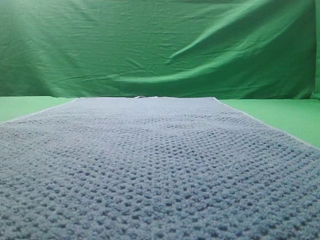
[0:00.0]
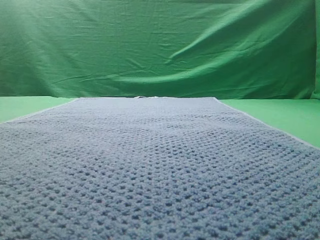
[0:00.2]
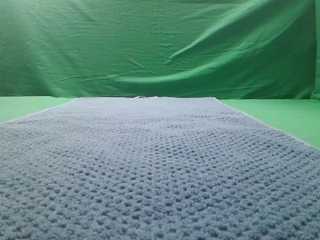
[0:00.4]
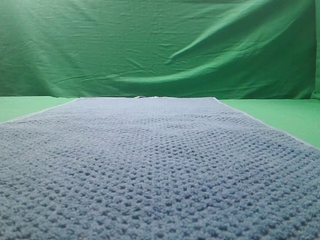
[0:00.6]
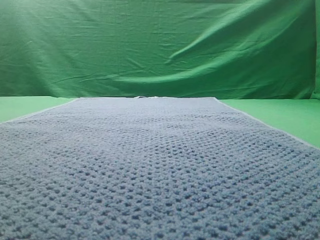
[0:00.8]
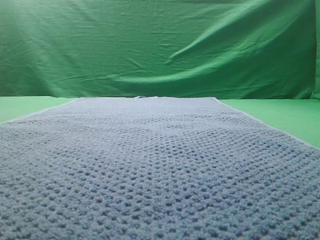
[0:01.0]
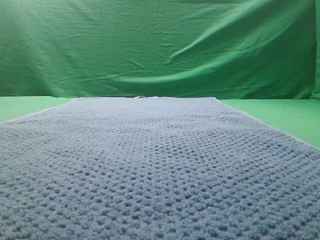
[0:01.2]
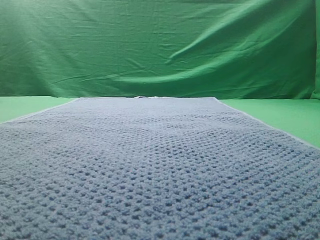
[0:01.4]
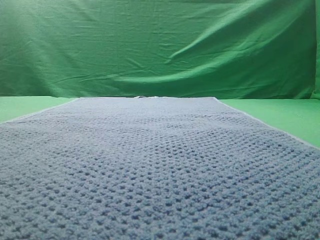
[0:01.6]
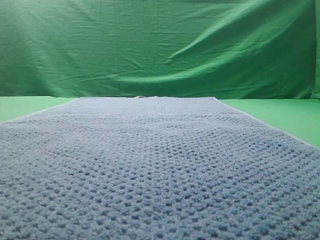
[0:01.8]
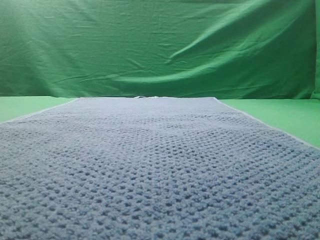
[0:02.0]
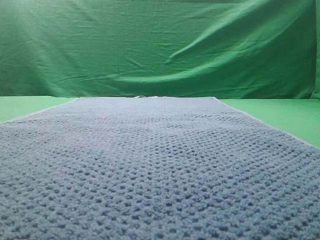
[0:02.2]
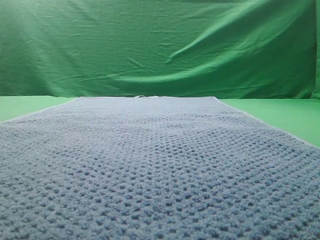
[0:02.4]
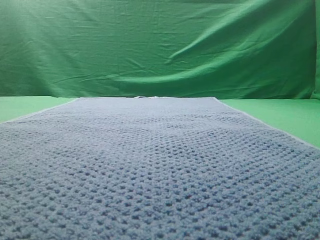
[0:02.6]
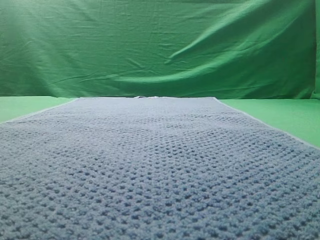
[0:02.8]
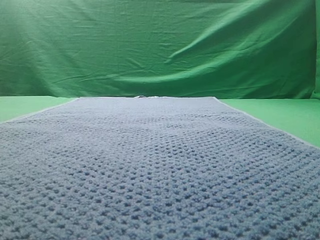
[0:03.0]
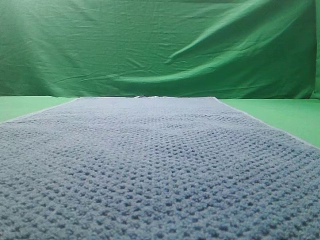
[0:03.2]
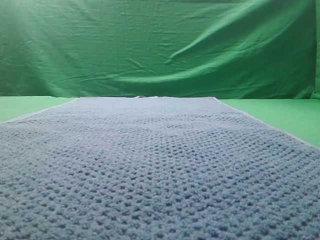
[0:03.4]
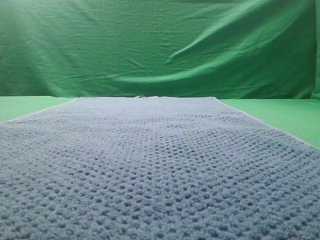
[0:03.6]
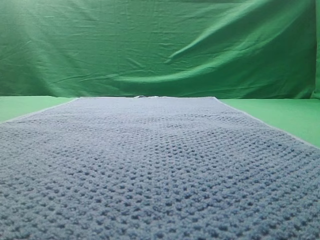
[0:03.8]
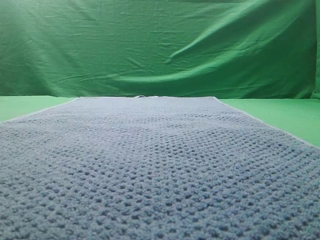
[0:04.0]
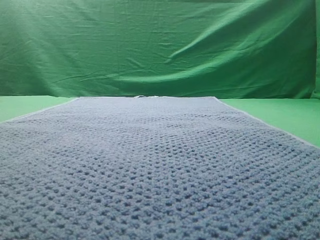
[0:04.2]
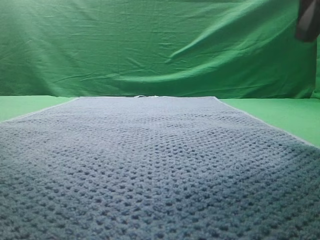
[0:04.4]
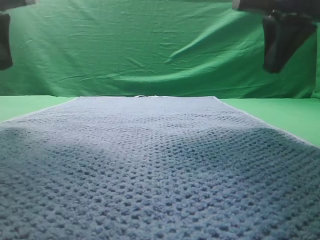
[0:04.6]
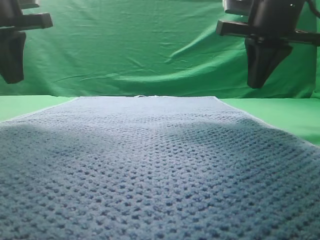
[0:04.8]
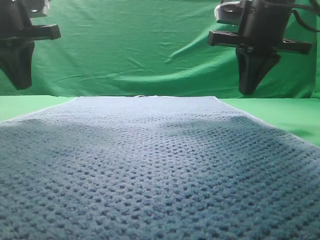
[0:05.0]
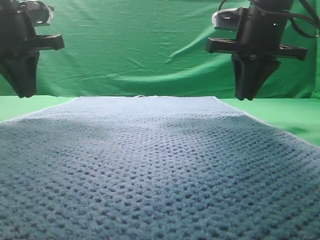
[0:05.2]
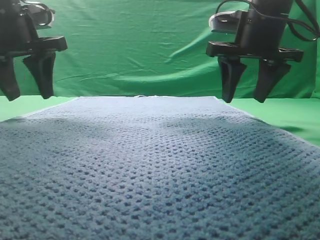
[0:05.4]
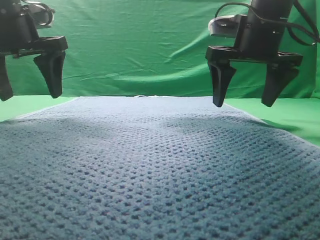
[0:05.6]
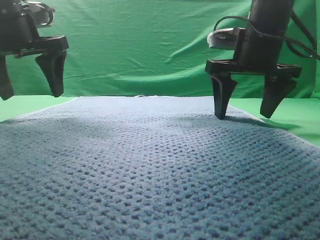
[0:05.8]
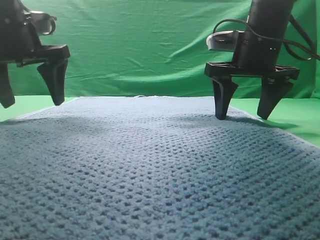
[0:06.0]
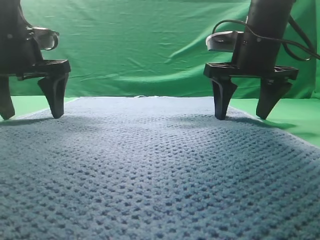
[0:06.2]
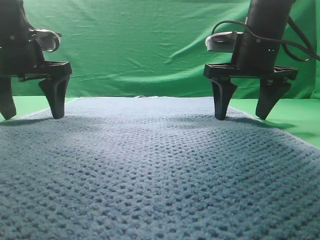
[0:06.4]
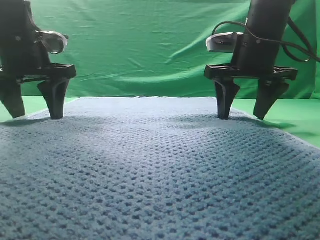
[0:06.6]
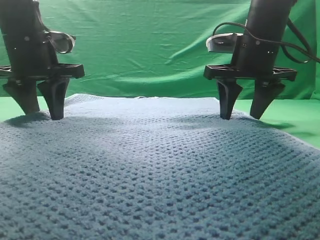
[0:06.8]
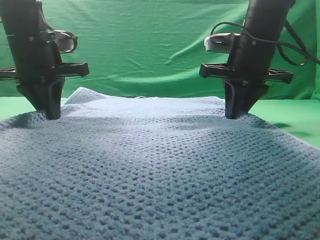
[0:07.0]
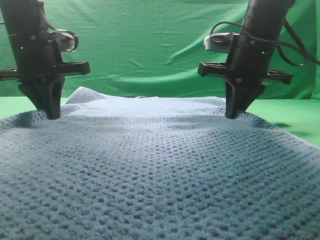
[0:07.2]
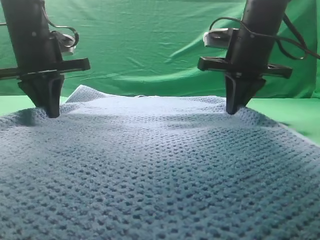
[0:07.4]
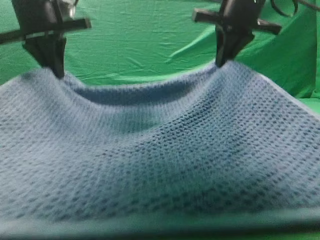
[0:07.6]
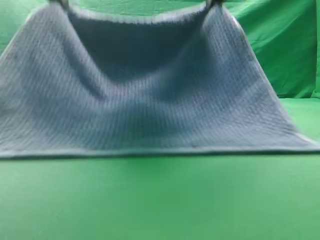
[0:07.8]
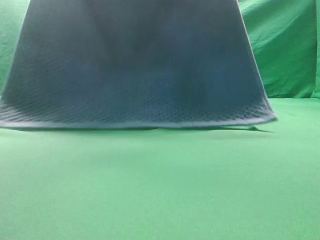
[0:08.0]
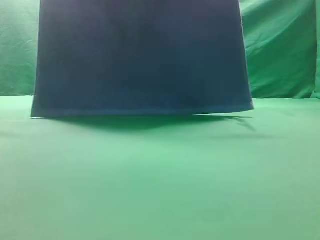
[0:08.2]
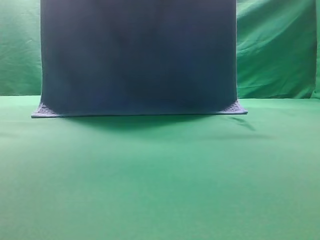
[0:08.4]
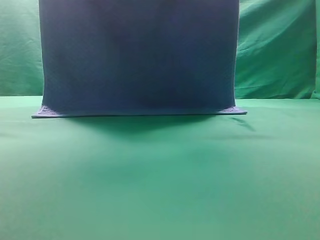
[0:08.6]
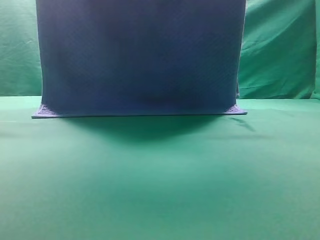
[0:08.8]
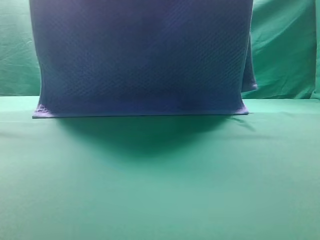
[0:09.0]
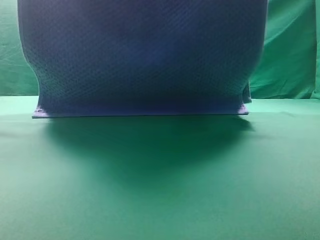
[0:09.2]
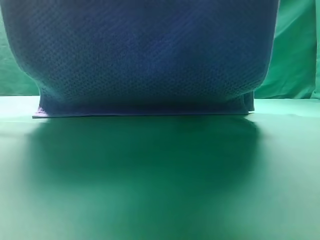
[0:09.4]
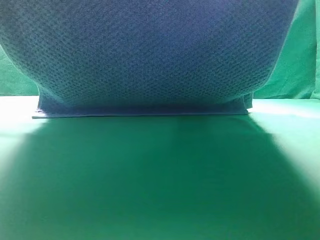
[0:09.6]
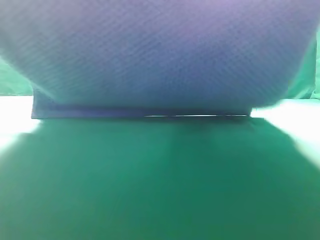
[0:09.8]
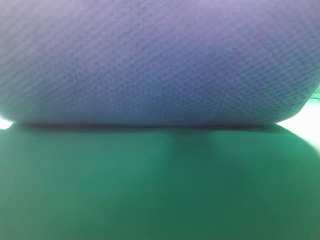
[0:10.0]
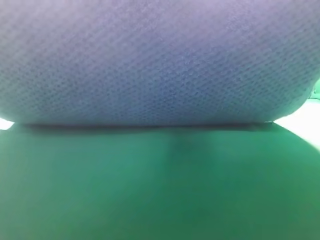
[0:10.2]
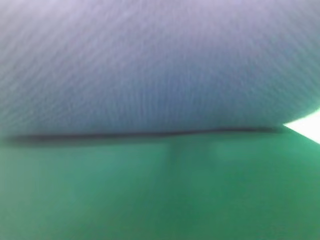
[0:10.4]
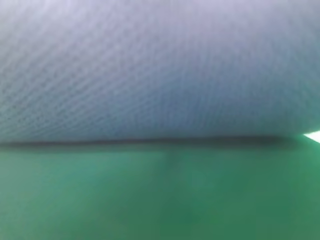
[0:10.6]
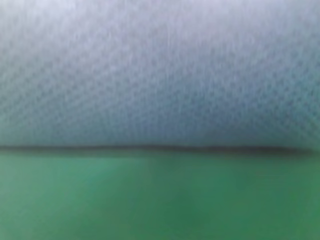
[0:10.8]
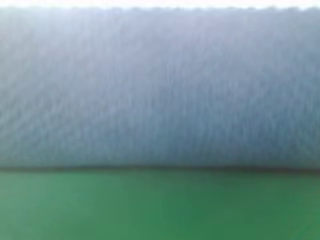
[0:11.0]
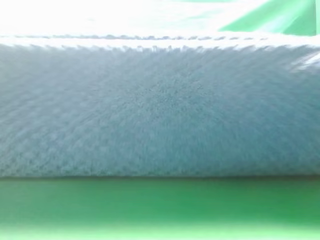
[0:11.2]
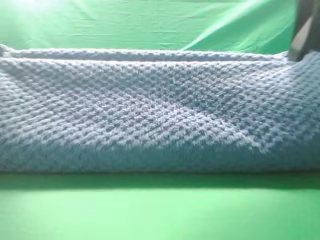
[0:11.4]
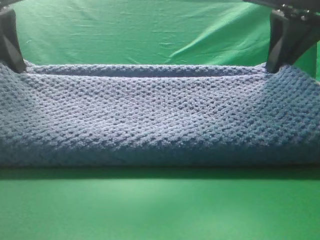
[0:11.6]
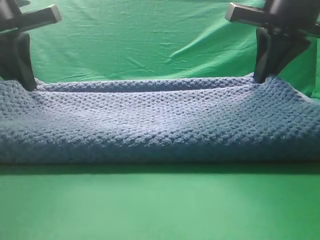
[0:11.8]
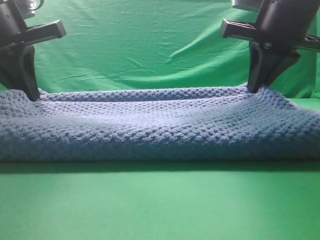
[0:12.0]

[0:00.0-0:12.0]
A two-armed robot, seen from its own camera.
Task of the whole recording: fold the towel on the table twice.
Step, 0:00.0 to 0:08.0: pick up the towel with two arm.

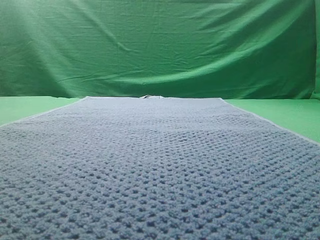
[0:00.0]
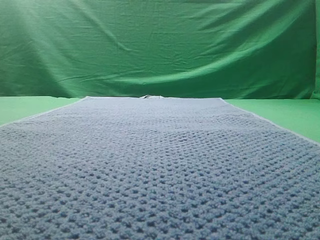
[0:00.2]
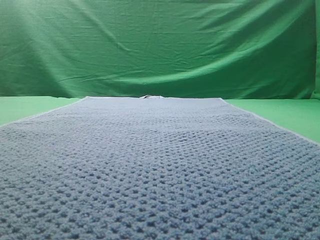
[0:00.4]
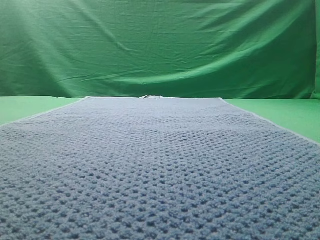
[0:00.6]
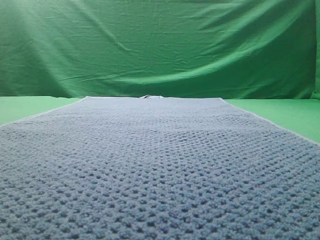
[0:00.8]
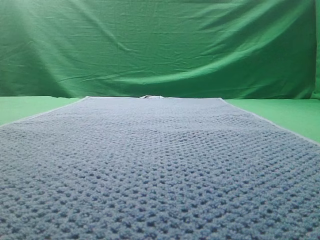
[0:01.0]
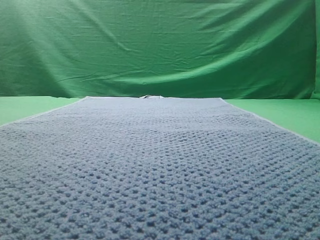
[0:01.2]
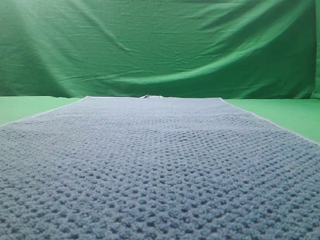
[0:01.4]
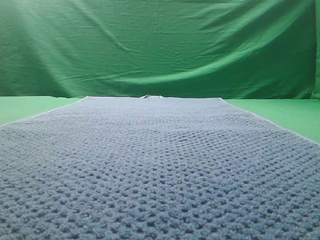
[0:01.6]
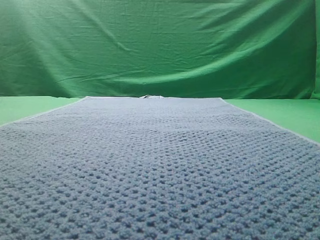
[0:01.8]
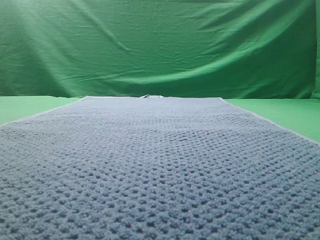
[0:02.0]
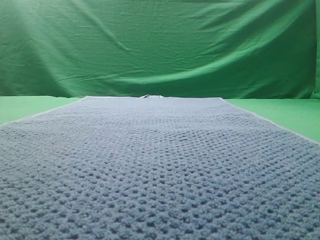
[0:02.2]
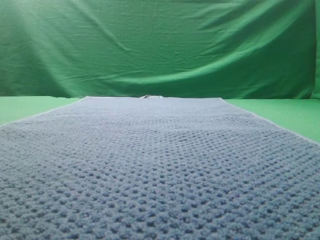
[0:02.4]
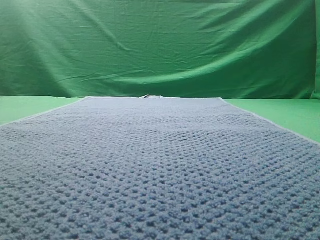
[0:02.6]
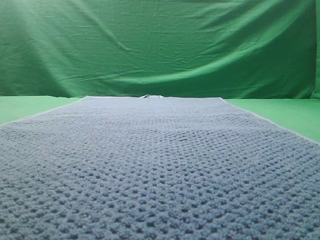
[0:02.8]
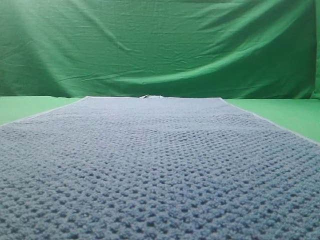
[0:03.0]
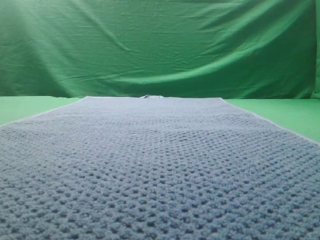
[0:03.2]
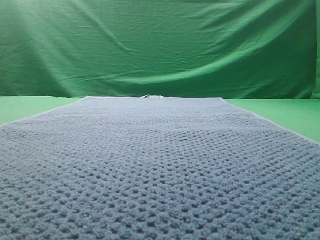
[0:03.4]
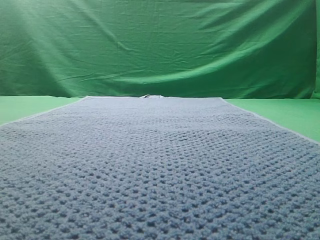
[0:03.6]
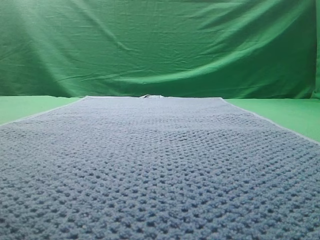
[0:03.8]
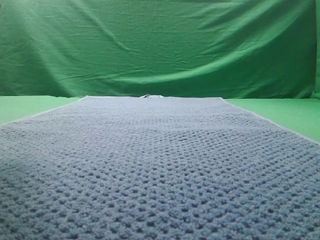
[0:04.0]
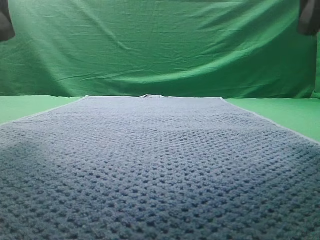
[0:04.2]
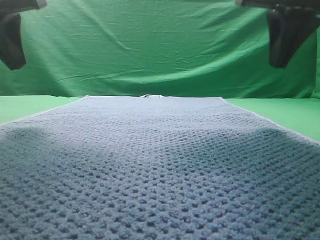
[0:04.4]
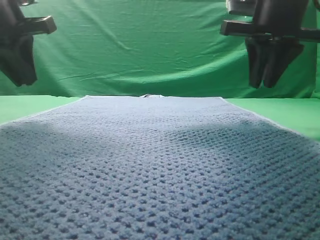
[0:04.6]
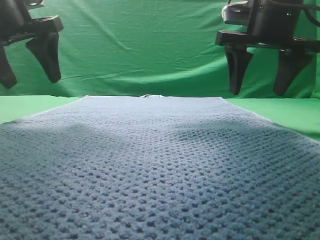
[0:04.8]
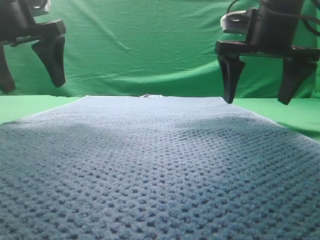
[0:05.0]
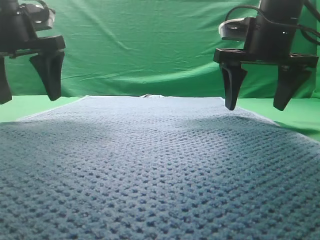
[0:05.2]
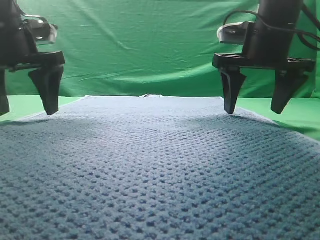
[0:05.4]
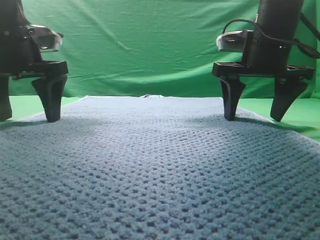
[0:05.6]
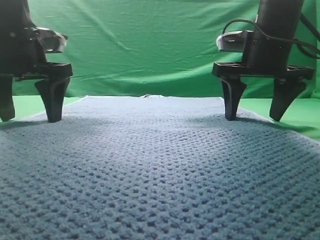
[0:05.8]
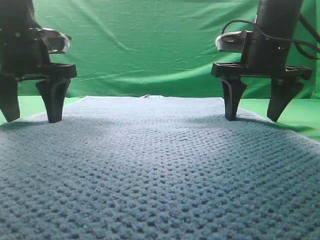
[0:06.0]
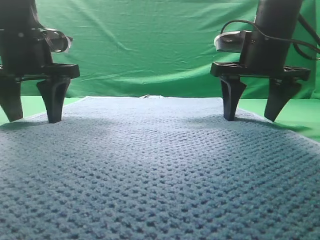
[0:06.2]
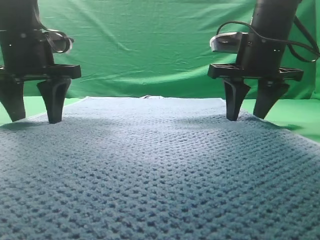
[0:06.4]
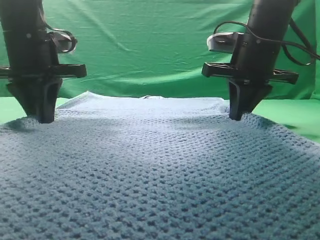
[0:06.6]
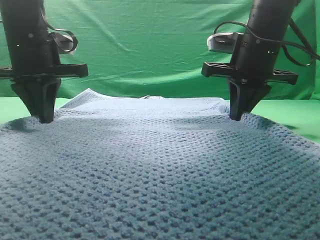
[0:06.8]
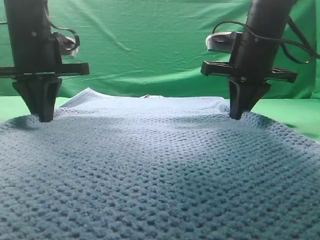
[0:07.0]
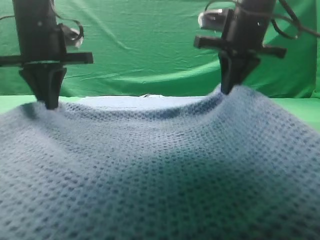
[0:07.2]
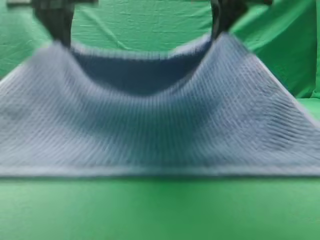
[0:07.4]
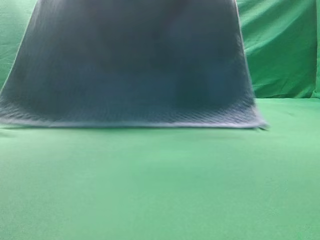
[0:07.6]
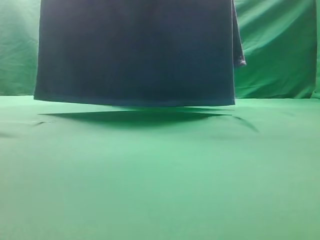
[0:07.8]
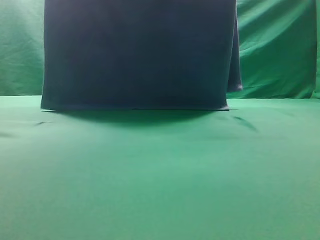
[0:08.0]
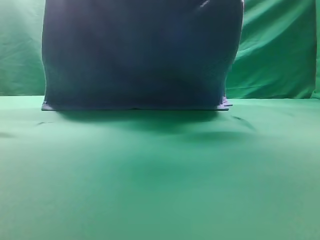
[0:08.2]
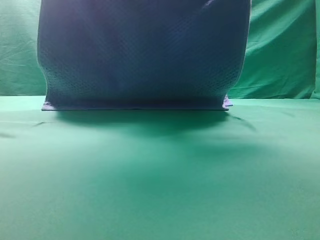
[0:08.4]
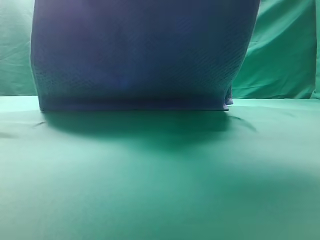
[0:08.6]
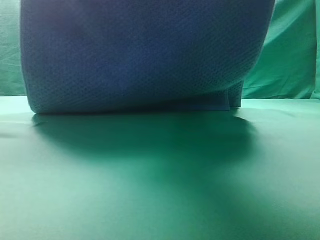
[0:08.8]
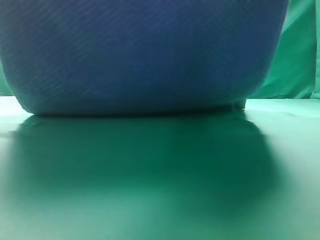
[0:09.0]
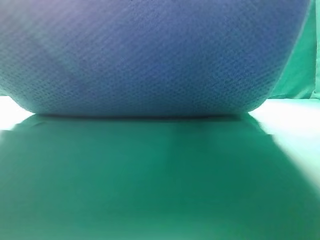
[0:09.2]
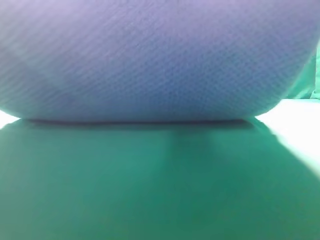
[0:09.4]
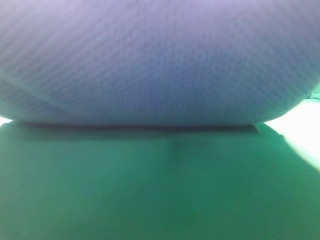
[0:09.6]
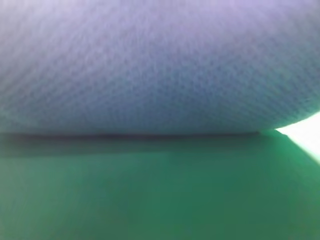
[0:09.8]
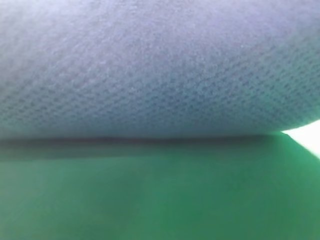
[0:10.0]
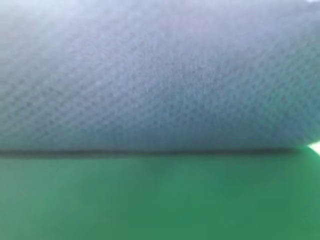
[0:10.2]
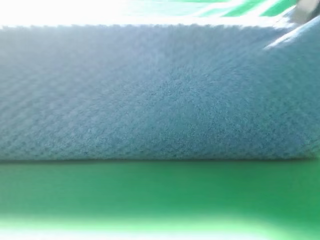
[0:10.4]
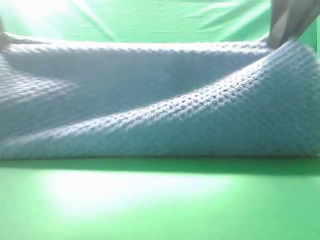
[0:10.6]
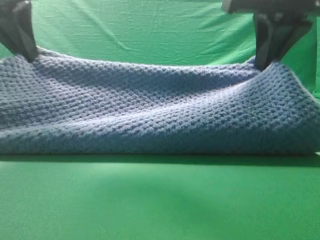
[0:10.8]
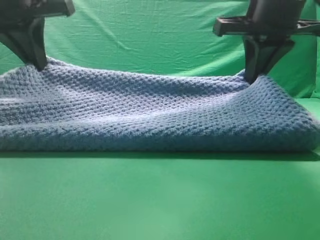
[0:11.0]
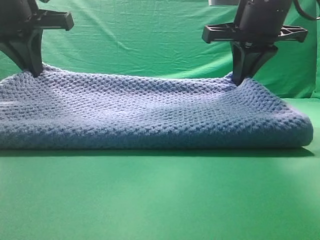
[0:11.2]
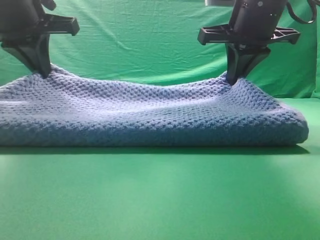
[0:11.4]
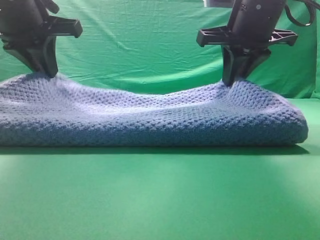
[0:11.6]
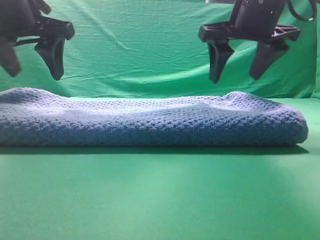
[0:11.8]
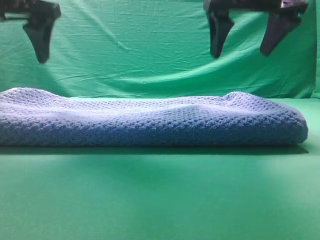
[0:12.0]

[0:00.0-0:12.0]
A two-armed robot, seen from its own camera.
Task of the whole recording: fold the towel on the table twice.
Step, 0:00.0 to 0:07.8: pick up the towel with two arm.
